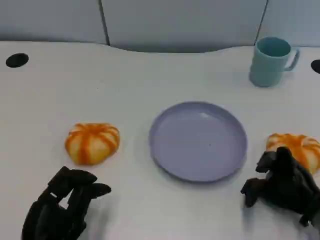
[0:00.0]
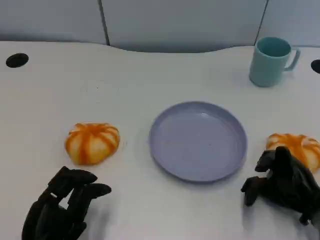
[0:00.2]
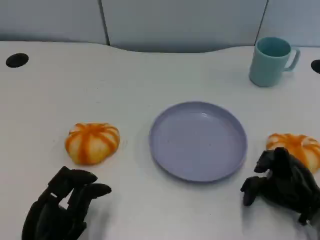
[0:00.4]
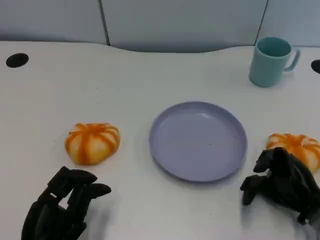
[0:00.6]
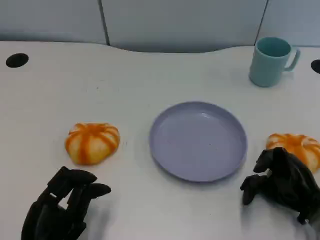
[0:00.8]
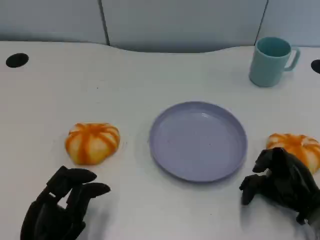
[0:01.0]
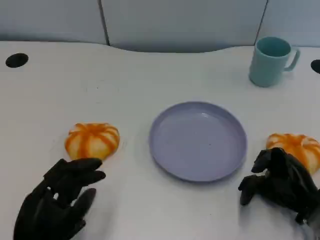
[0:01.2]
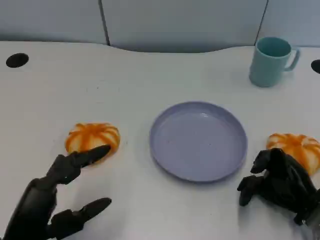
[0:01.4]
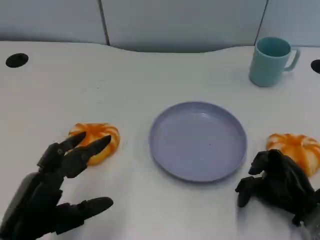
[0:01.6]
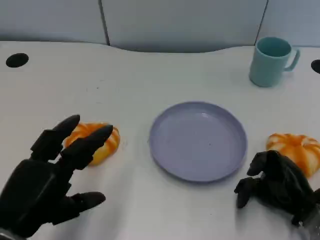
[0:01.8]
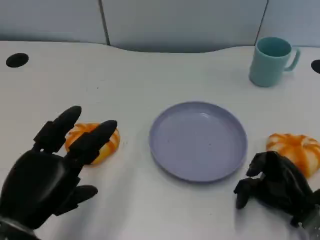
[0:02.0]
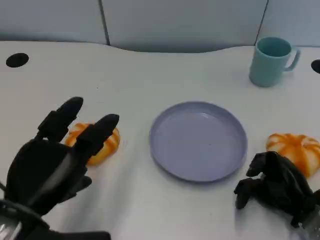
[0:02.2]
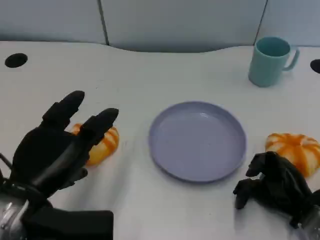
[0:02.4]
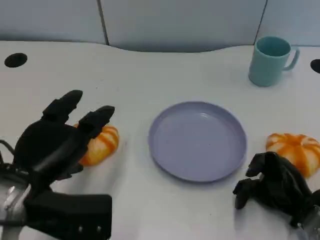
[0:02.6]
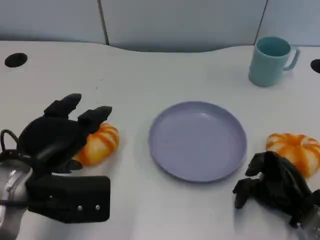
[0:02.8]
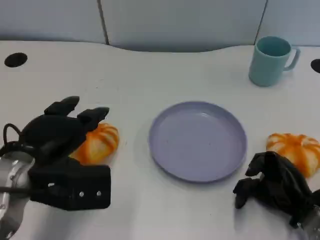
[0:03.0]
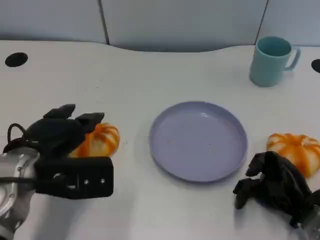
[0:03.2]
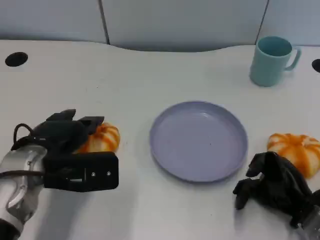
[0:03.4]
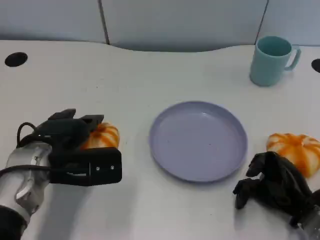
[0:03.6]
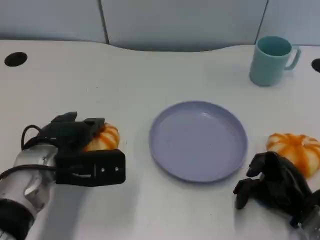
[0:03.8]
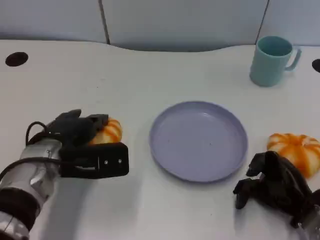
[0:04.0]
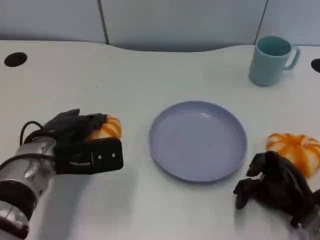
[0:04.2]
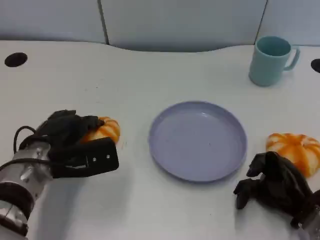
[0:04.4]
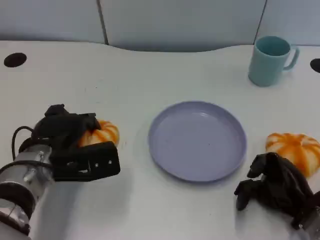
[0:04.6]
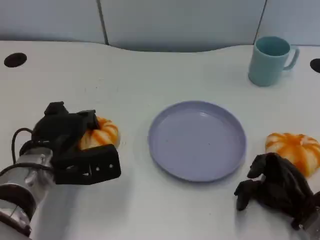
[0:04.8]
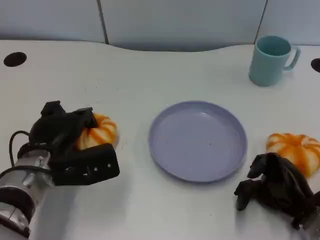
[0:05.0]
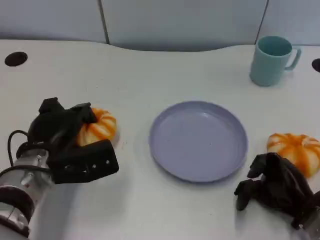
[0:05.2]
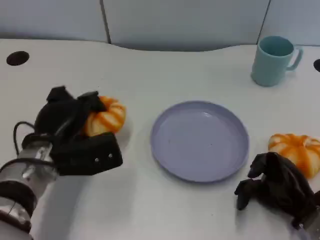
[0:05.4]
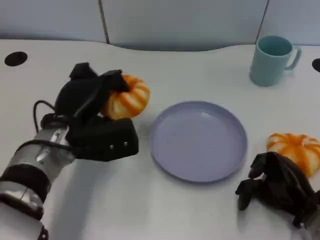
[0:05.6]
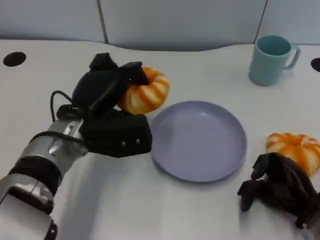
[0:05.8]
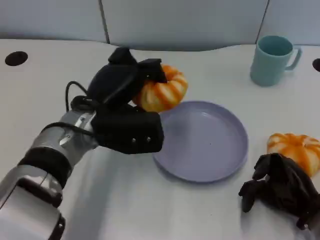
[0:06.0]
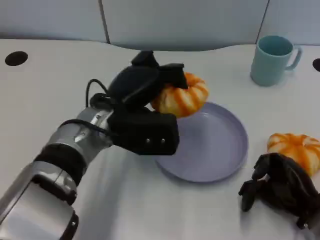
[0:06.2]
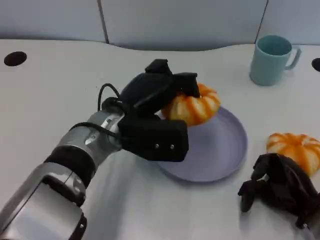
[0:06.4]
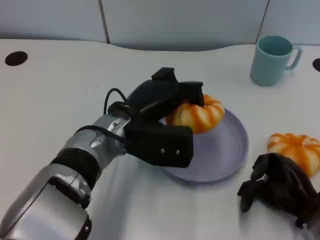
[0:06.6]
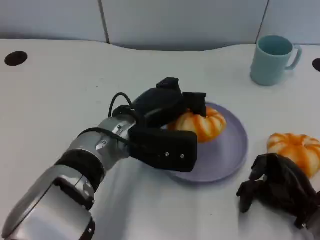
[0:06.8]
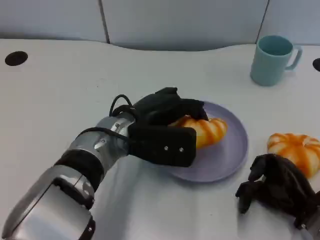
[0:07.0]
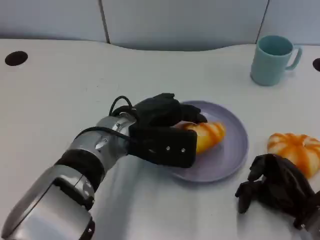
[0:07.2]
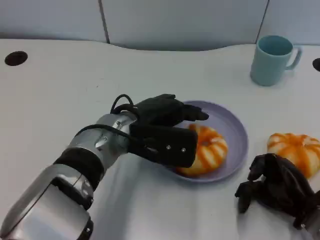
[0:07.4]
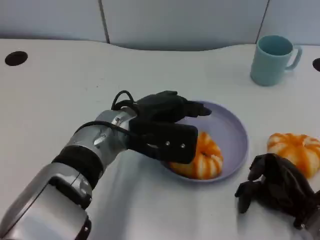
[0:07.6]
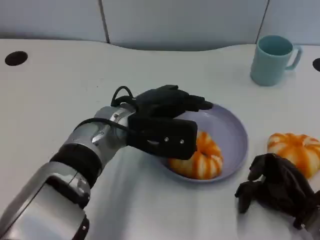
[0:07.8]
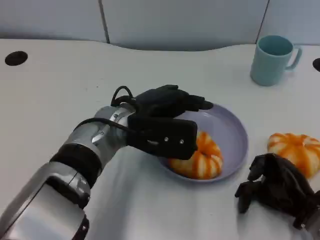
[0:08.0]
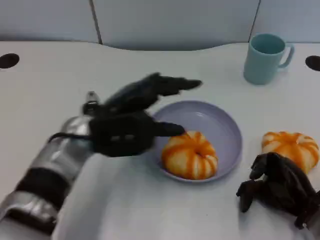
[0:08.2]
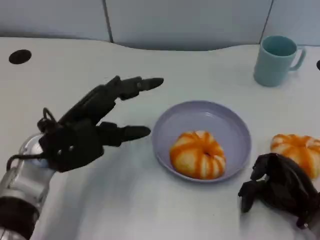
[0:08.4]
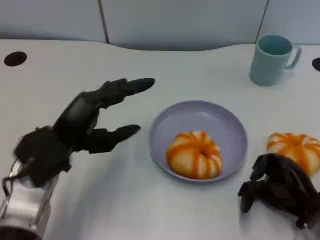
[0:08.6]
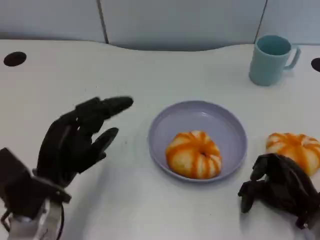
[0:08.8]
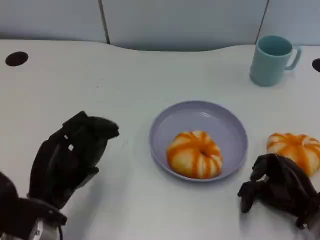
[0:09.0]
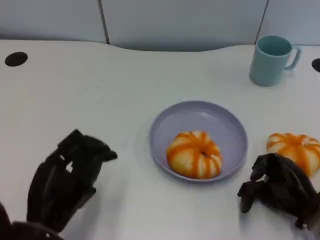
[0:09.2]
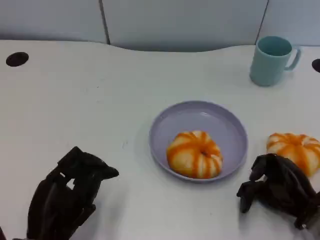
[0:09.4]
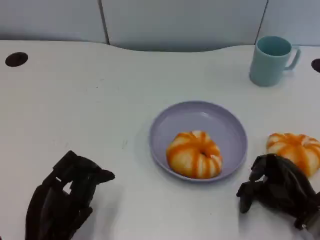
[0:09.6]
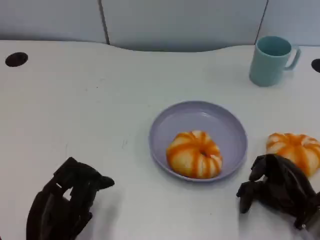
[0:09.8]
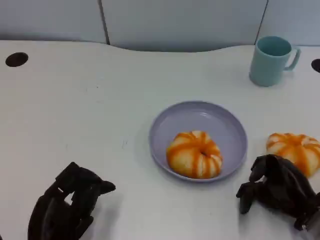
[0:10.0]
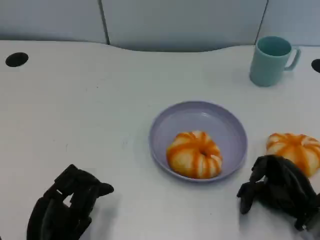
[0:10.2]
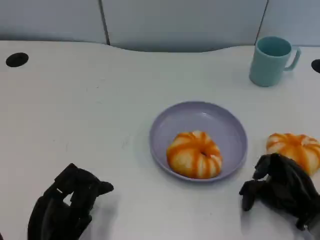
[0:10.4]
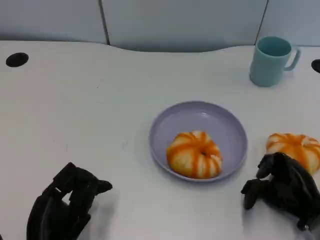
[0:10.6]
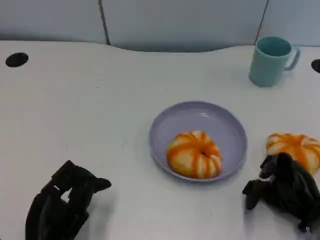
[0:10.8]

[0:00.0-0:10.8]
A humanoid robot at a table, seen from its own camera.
Task of the whole recording: Grasp the bread from the table and place it into the plate.
0:00.0 to 0:01.6: The left hand shifts some 10 cm upward.
0:01.6 to 0:03.0: The left hand goes some 10 cm forward.
0:03.0 to 0:04.6: The left hand moves downward, about 5 cm.
0:04.6 to 0:06.2: The left hand travels to the right and upward by approximately 10 cm.
0:07.8 to 0:09.2: The left hand travels backward, to the left and downward by some 20 cm.
0:09.2 to 0:10.8: The hands move only a little.

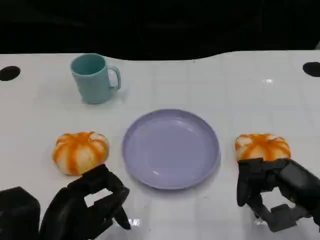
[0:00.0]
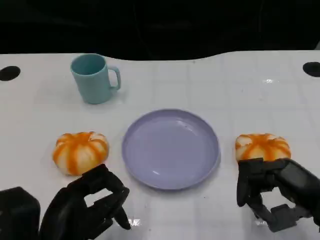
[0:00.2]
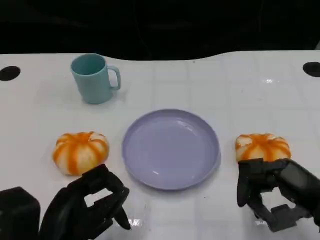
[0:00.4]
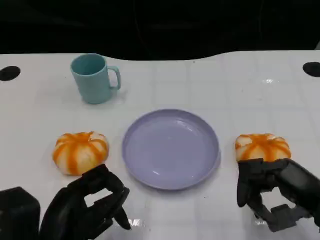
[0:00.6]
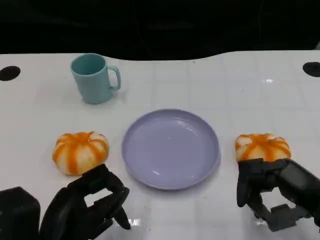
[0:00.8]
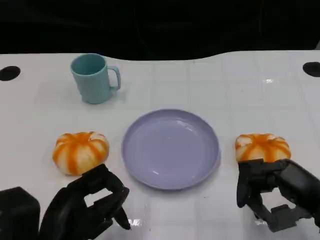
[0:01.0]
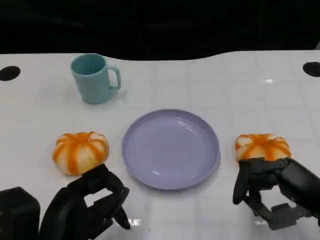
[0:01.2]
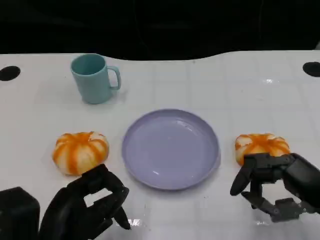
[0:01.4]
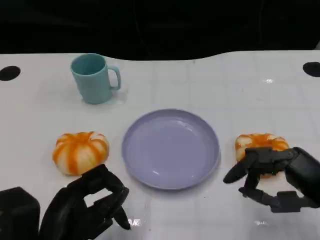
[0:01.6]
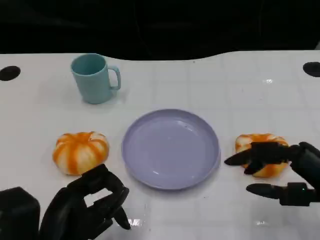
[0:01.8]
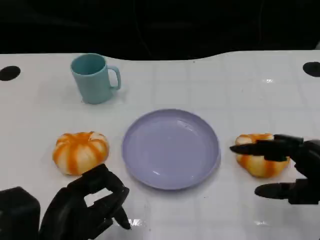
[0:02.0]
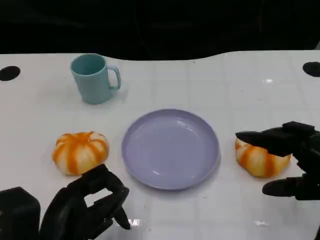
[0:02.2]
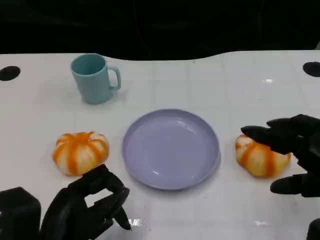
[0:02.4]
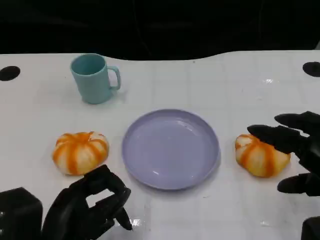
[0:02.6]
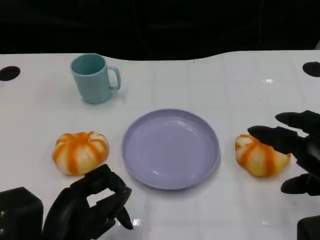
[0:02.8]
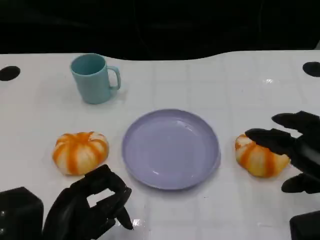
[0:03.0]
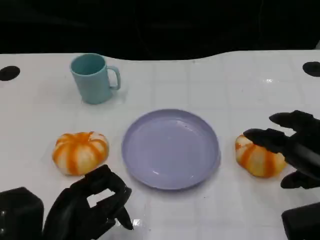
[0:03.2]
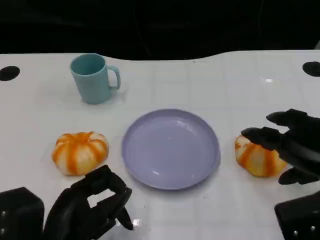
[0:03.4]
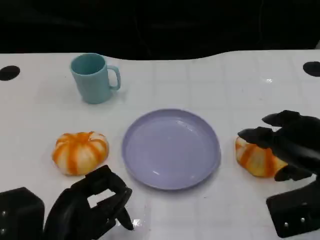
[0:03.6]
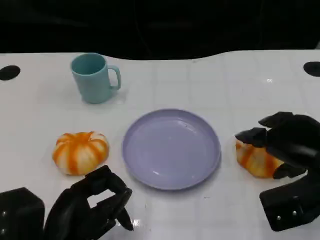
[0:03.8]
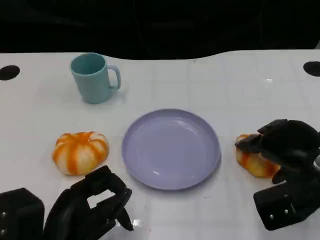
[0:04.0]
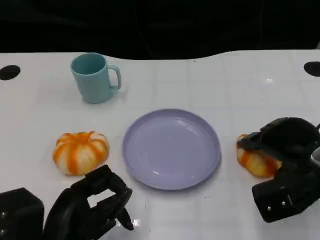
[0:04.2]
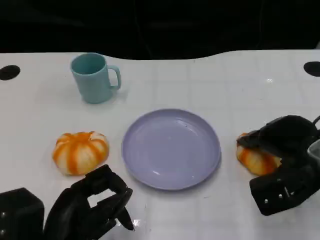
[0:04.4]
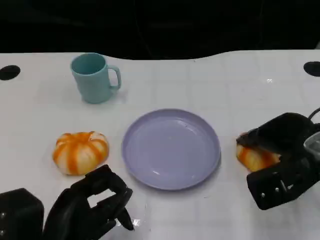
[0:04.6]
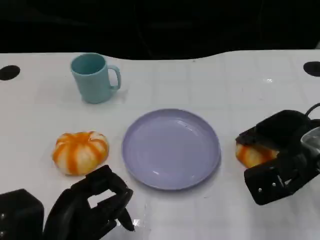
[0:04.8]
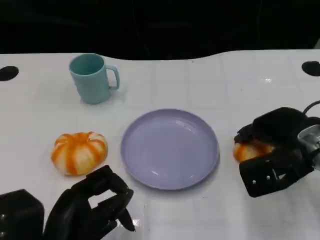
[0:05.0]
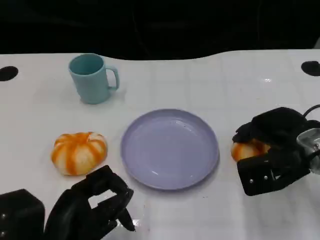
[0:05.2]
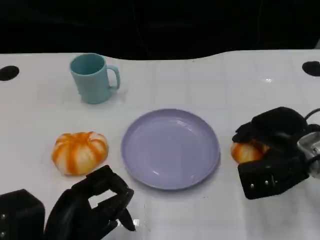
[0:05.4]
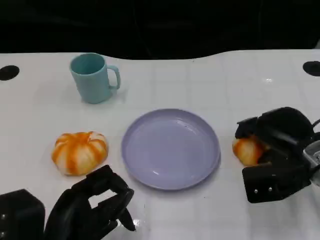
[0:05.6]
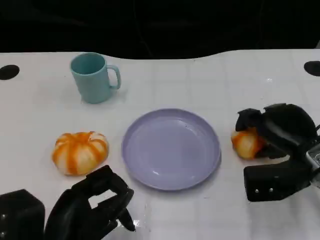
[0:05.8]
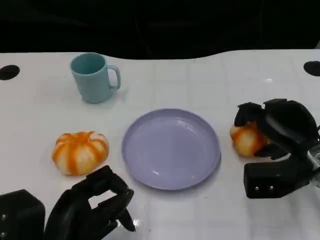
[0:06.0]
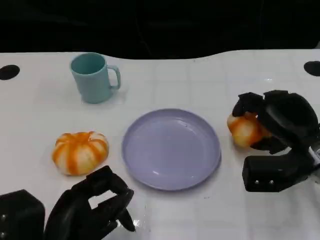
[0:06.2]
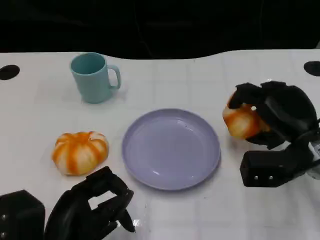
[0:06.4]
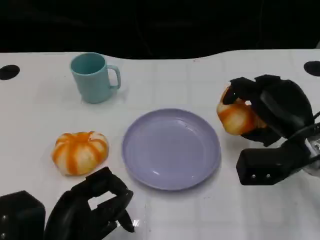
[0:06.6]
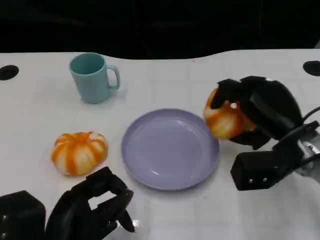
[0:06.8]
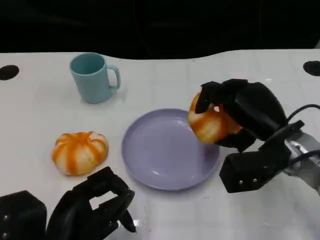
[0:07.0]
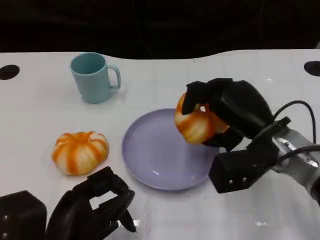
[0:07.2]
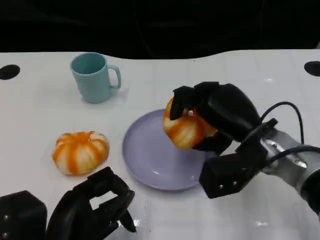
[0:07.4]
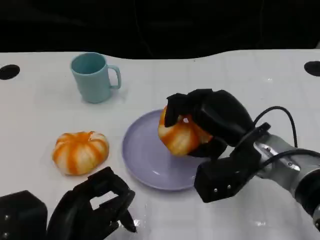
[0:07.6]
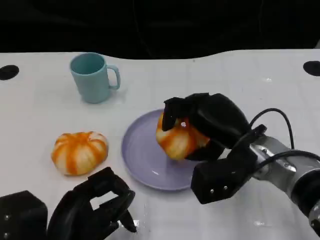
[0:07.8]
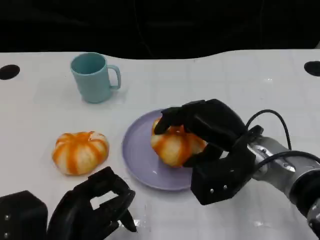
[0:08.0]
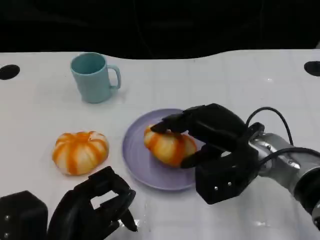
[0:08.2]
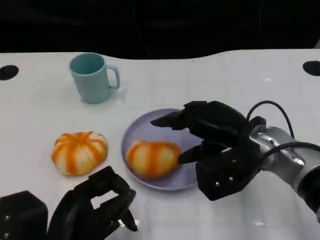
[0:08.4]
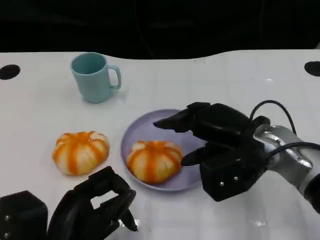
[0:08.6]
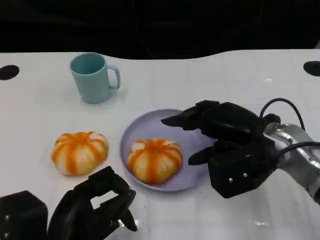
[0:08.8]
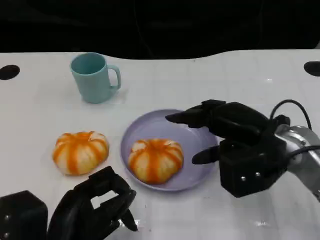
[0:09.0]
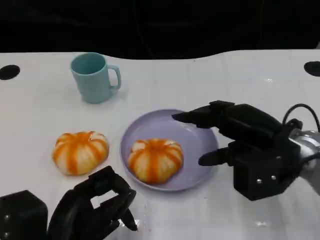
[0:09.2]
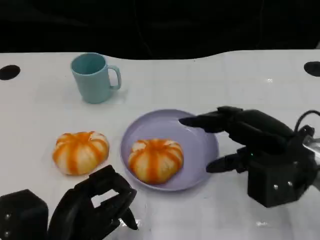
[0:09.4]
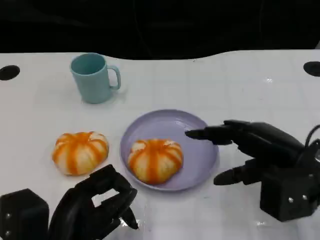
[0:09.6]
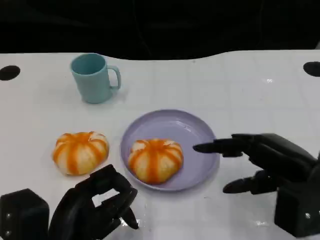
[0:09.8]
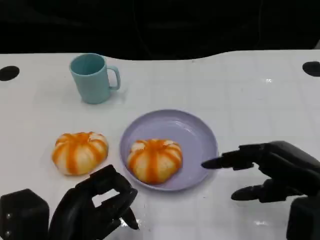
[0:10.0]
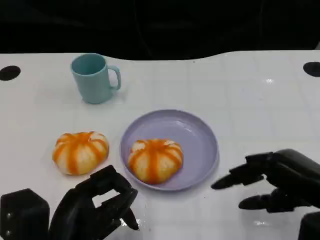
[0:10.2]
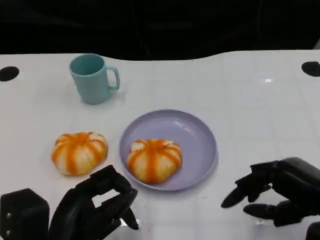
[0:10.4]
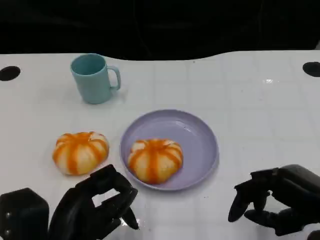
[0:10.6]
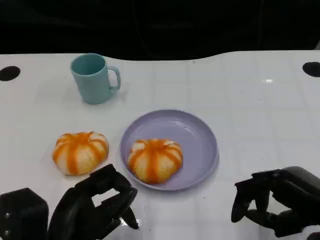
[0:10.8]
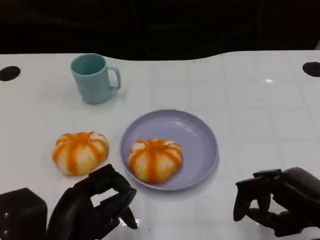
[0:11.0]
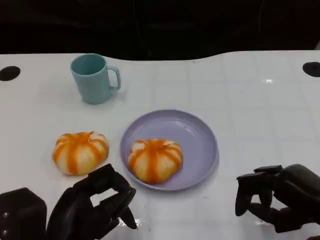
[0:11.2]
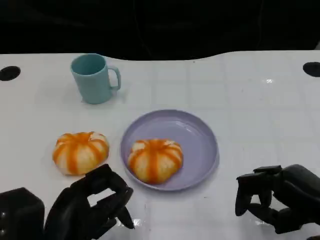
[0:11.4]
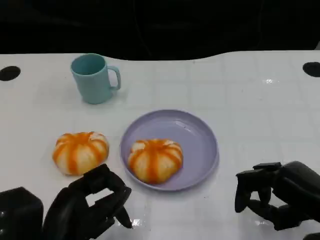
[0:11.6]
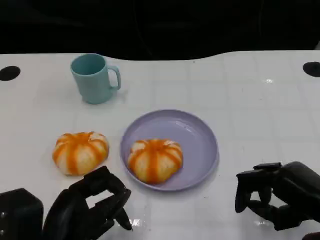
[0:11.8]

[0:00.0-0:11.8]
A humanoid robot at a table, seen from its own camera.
Task of the whole recording: Grasp the bread from the table and place it into the plate.
0:00.0 to 0:01.4: There are only small adjustments of the hands.
0:03.0 to 0:04.4: The right hand travels forward by about 10 cm.
0:06.0 to 0:07.4: The right hand moves to the left, approximately 10 cm.
0:08.8 to 0:10.4: The right hand goes some 15 cm backward and to the right.
0:10.4 to 0:11.8: There are only small adjustments of the hands.
